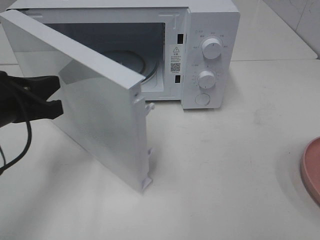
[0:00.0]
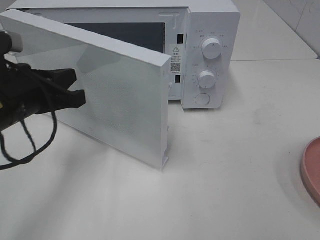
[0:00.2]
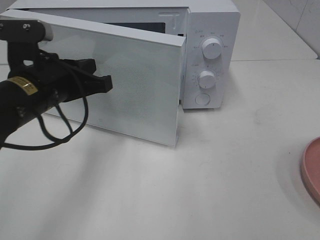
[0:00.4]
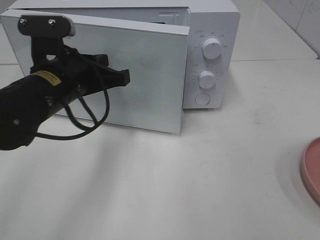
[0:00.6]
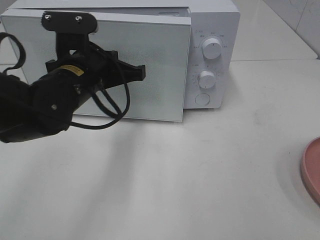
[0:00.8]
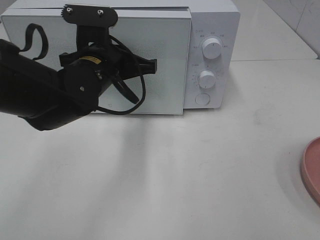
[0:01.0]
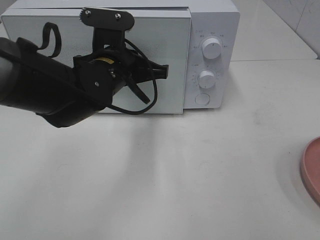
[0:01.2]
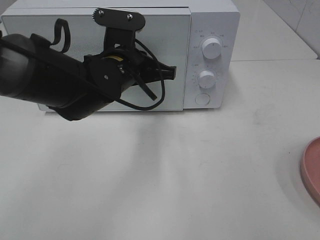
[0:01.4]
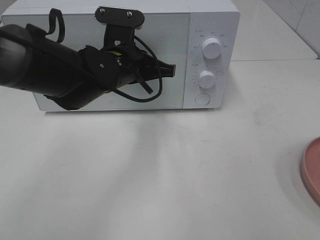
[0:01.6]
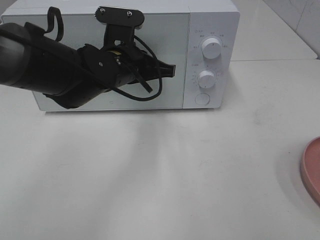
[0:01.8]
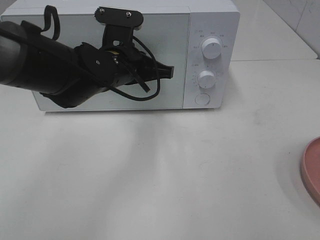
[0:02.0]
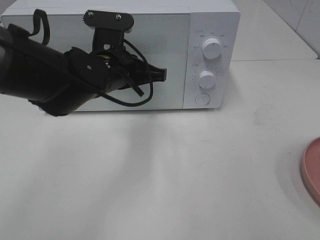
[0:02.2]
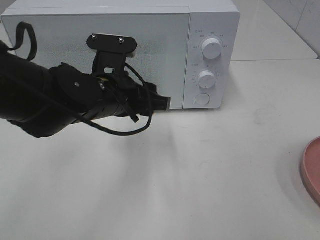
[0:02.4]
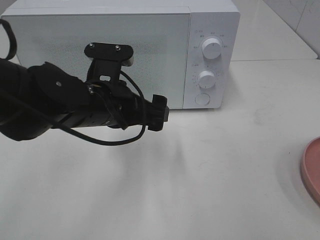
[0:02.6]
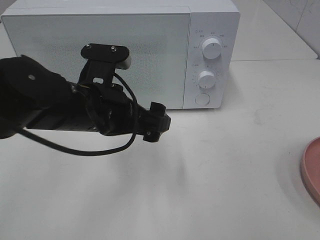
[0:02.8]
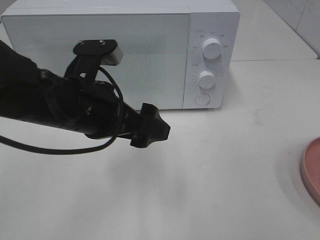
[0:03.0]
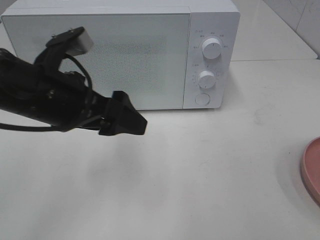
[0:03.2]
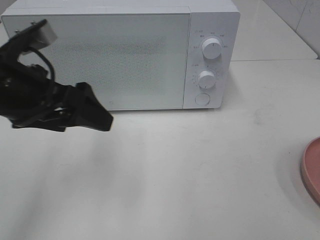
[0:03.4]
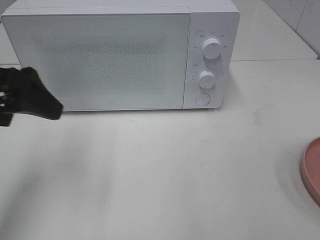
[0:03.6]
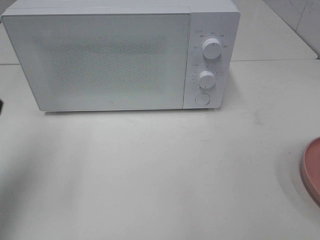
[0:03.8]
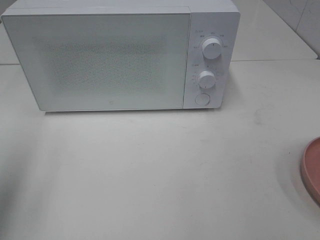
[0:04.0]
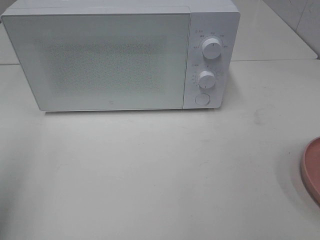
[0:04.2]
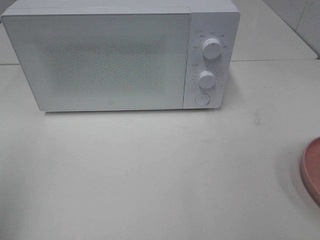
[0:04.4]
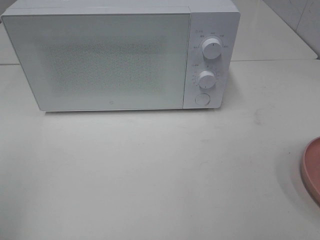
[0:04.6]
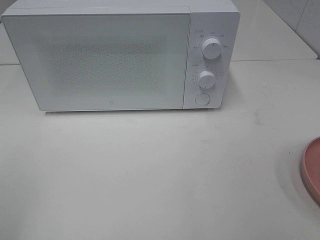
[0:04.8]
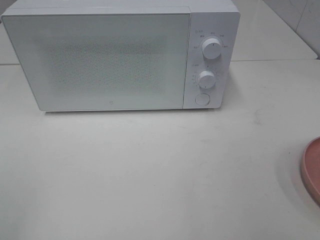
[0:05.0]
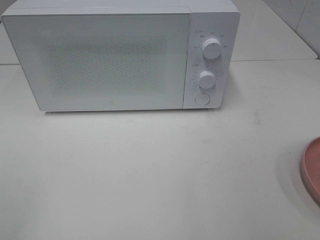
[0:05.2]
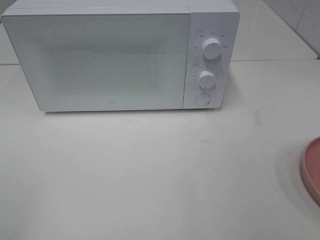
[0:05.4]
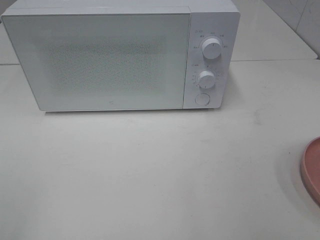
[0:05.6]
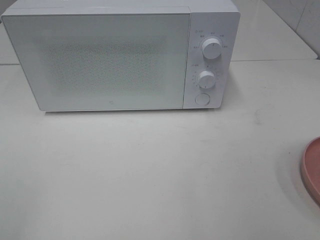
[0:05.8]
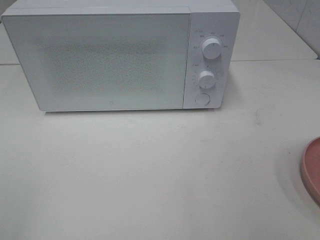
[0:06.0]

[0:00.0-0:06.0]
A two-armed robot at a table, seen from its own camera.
Task of the whole recording: Heat the burger.
Step, 0:00.0 to 0:02.4: Left hand: close the microwave door.
0:00.0 to 0:01.6: The left gripper is displaced to the right and forward by approximately 20 cm.
0:01.6 to 0:03.0: The left gripper moves backward, approximately 10 cm, and opens.
0:03.0 to 0:04.4: The left gripper goes about 30 cm to the left, backward and upward.

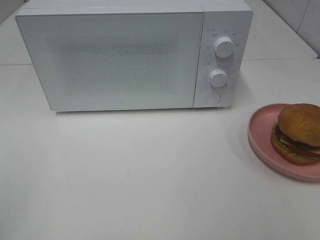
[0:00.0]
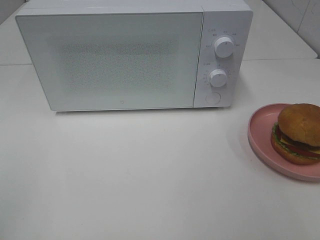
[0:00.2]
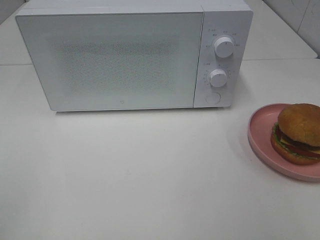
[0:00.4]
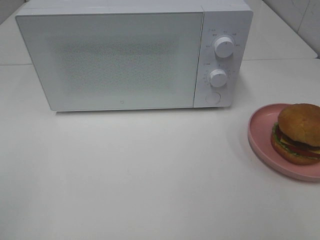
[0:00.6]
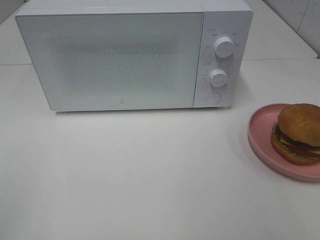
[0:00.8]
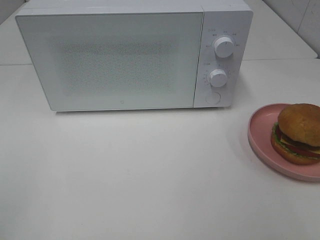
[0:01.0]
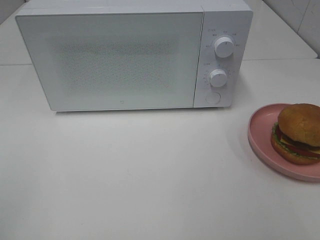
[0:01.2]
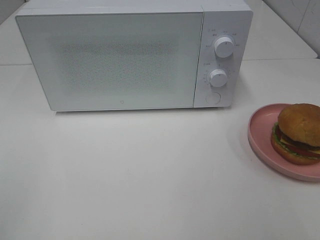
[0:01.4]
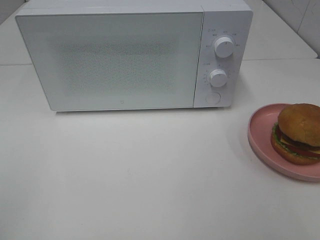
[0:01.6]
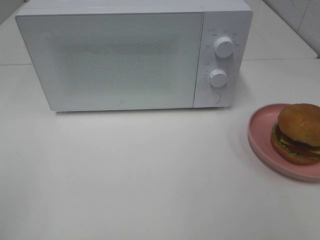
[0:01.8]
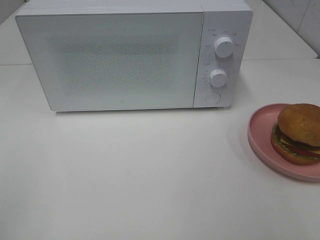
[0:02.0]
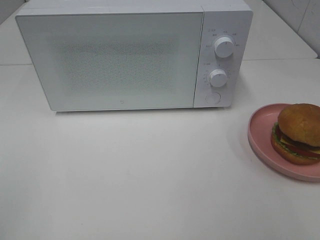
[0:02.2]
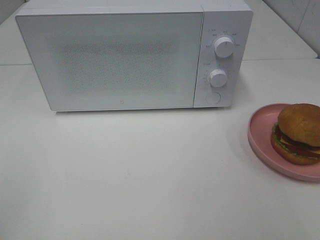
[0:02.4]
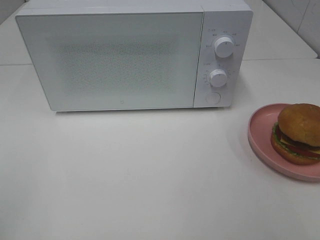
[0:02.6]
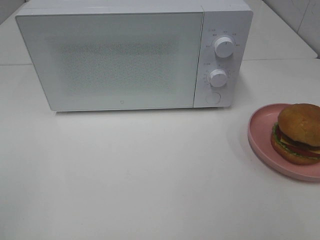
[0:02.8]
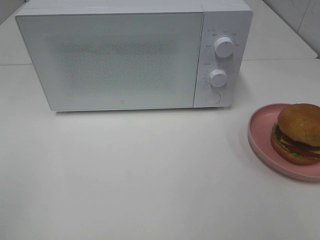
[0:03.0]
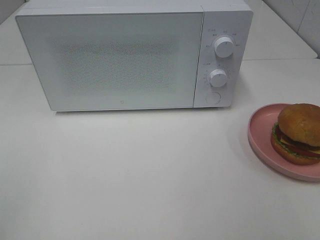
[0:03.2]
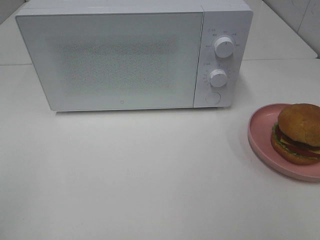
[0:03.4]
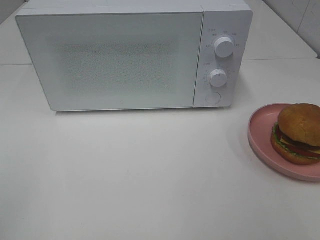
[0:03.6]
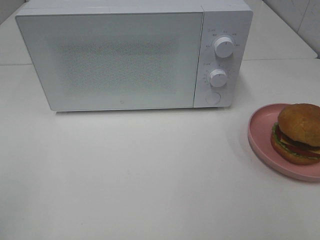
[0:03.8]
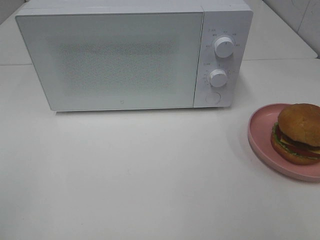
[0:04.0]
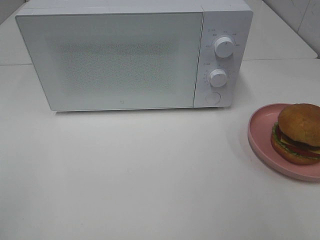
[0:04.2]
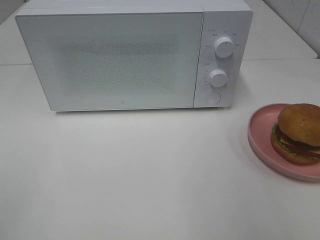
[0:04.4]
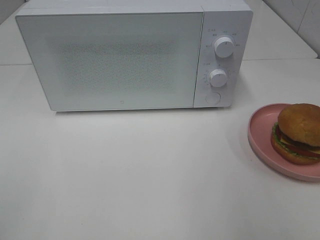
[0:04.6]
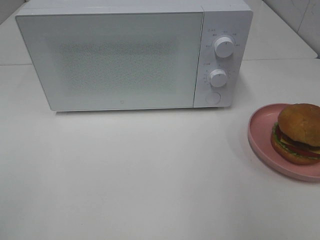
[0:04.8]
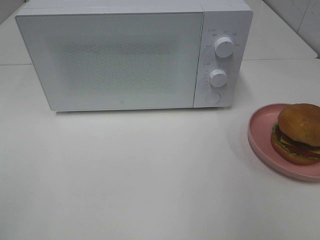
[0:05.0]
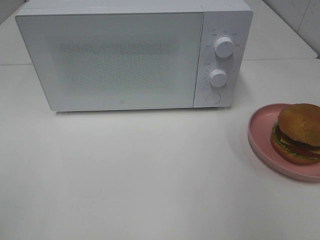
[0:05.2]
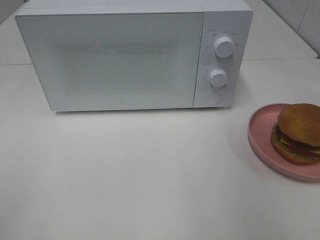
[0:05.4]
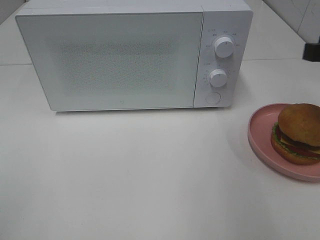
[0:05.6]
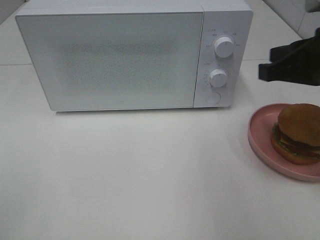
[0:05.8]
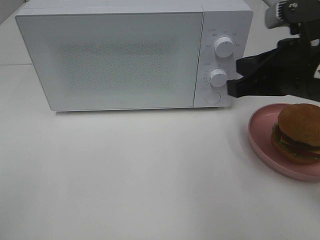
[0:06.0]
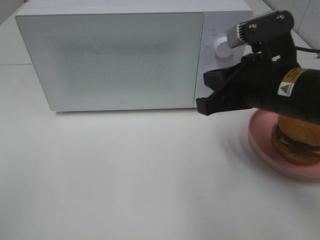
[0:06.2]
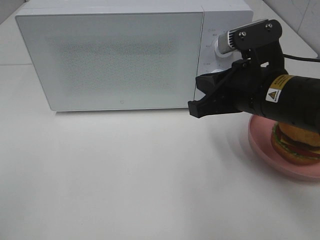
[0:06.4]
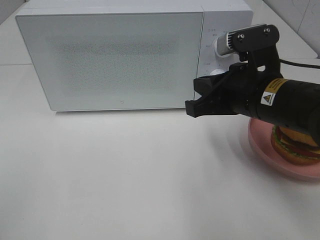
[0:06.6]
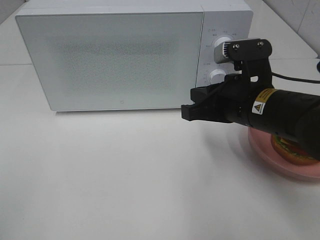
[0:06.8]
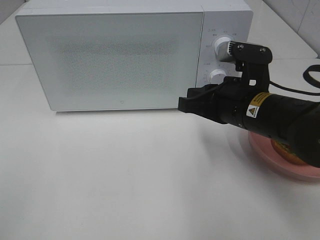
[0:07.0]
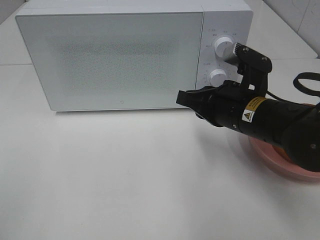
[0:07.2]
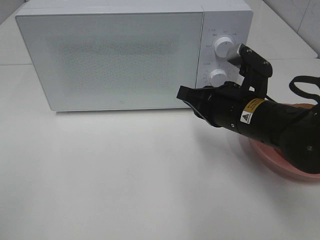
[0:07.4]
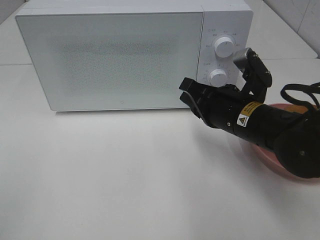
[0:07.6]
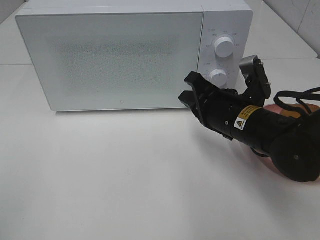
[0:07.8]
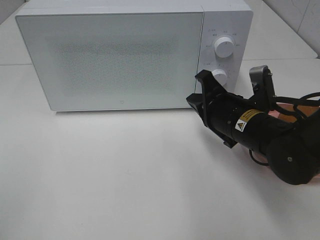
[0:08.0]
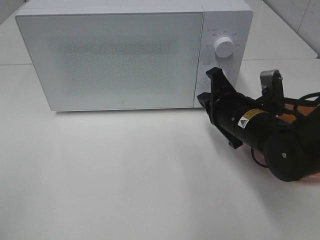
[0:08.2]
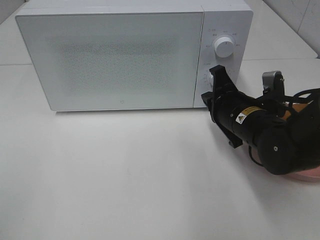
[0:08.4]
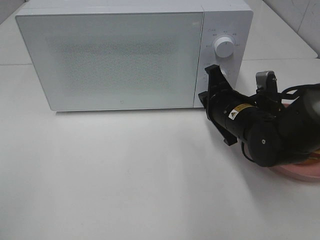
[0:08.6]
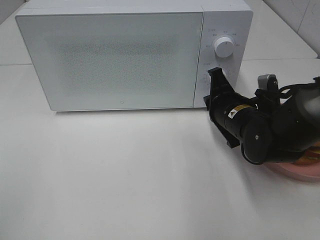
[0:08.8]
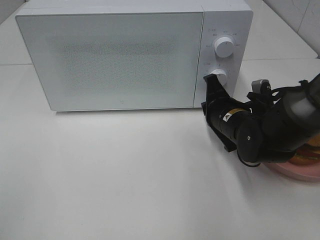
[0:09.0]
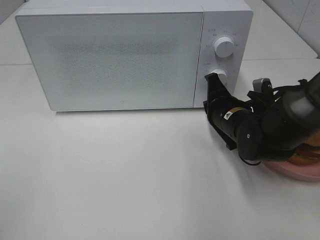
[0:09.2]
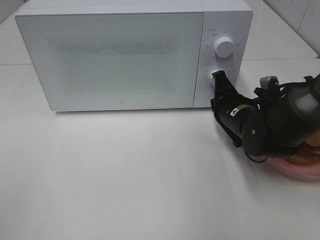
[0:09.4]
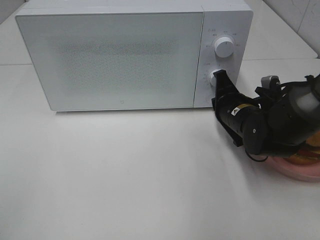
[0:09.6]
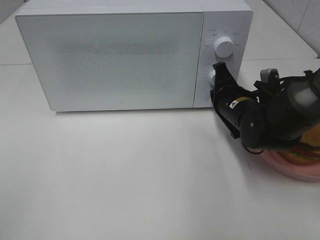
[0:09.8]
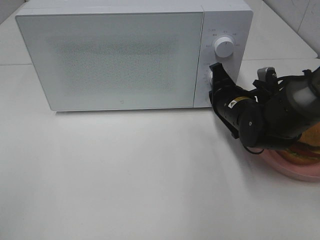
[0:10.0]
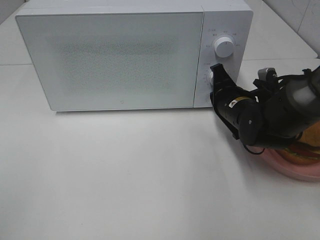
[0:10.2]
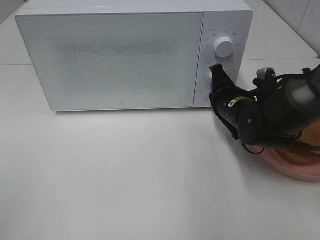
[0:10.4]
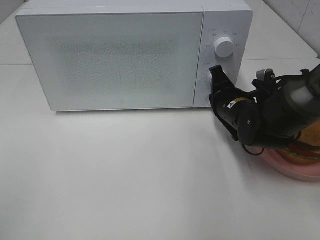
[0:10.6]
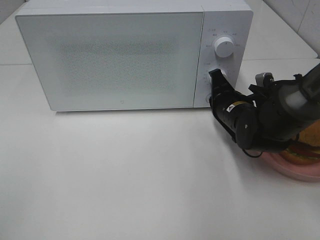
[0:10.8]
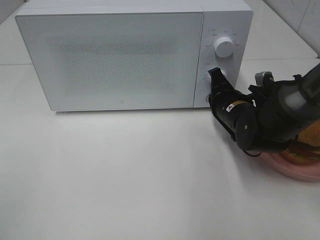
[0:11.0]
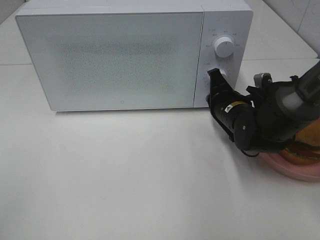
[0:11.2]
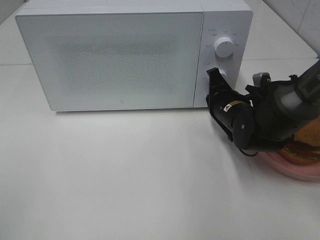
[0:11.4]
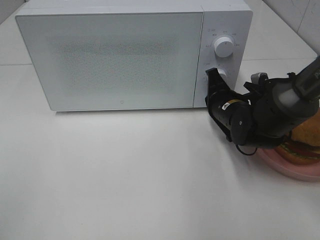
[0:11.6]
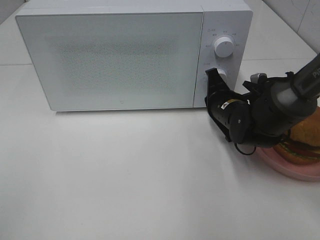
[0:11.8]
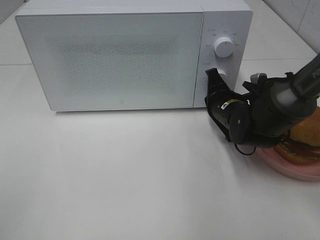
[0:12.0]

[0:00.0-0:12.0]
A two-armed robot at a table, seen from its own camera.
Task of the whole recording: Heat the burger.
0:00.0 to 0:03.0: The two grippers keep their place.
0:04.4 to 0:06.0: The right gripper travels forward, to the left and downward by about 20 cm, and closes up.
0:06.0 to 0:07.6: The right gripper travels downward and to the left by roughly 10 cm.
0:07.6 to 0:09.0: The right gripper is displaced downward and forward by some 10 cm.
0:09.0 to 0:12.0: There are only small adjustments of the grippers.

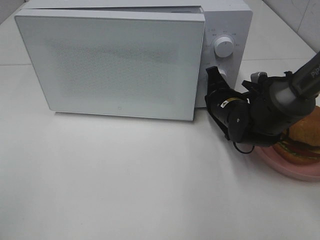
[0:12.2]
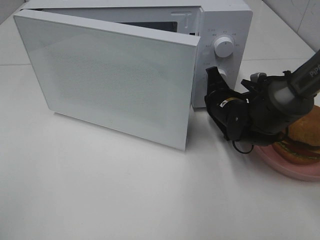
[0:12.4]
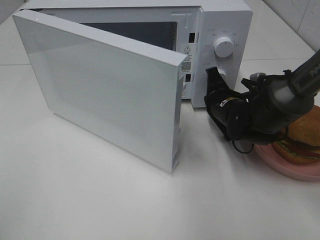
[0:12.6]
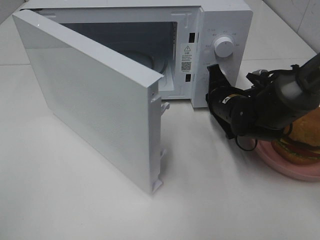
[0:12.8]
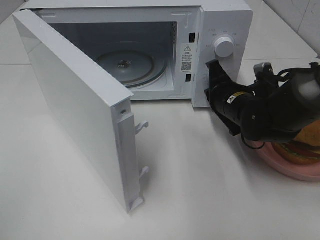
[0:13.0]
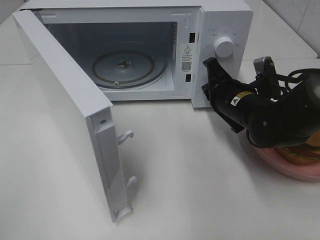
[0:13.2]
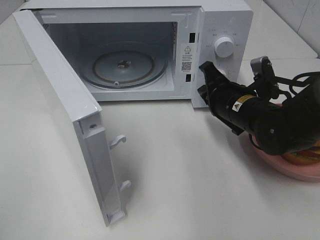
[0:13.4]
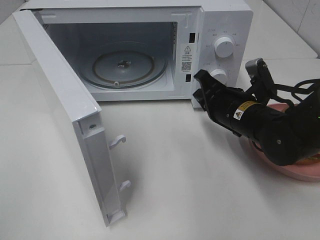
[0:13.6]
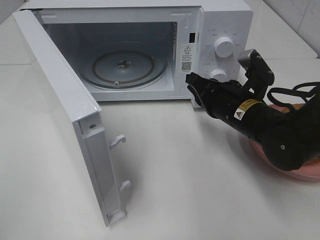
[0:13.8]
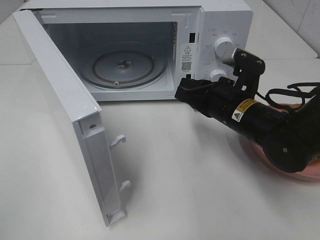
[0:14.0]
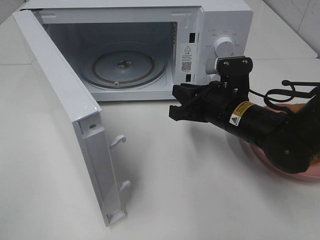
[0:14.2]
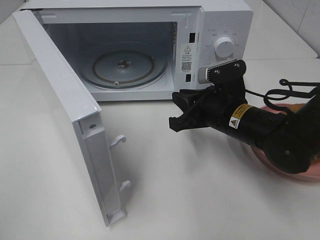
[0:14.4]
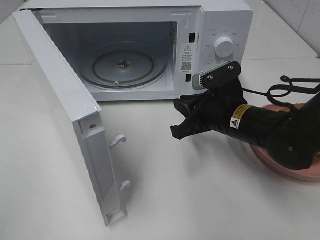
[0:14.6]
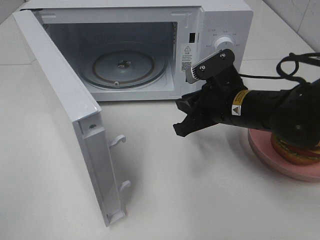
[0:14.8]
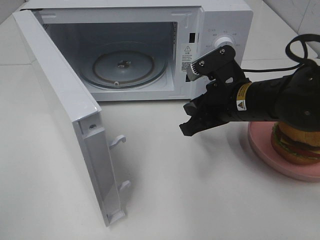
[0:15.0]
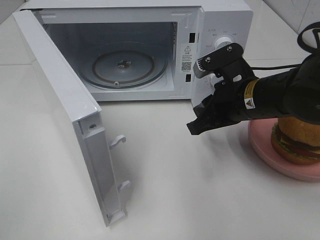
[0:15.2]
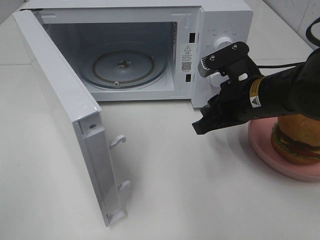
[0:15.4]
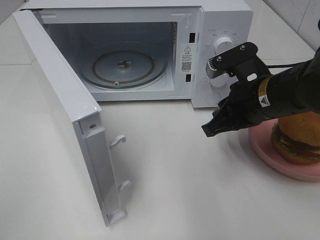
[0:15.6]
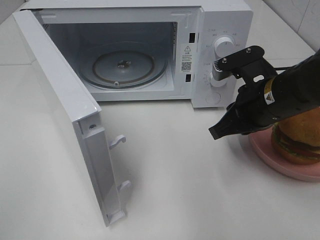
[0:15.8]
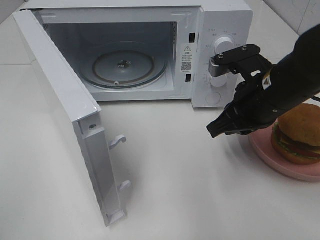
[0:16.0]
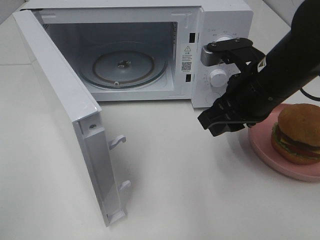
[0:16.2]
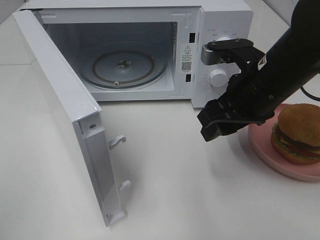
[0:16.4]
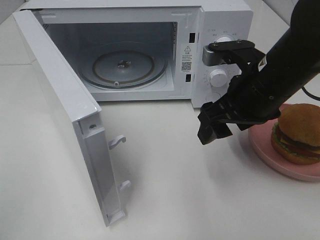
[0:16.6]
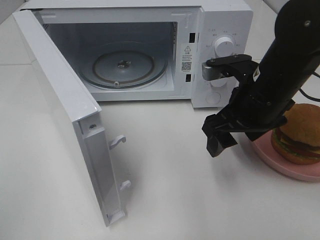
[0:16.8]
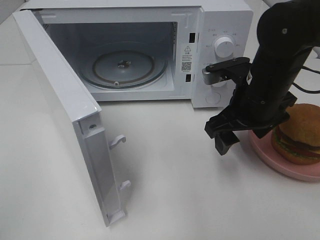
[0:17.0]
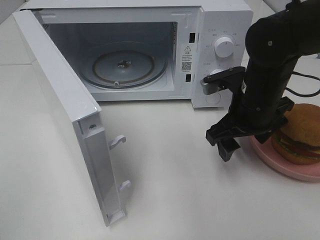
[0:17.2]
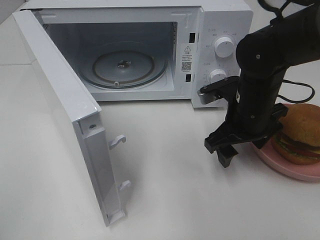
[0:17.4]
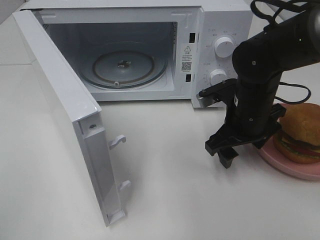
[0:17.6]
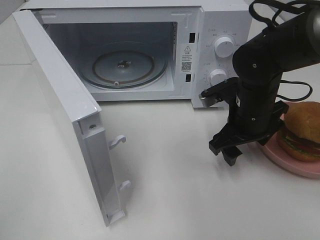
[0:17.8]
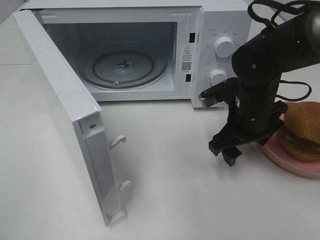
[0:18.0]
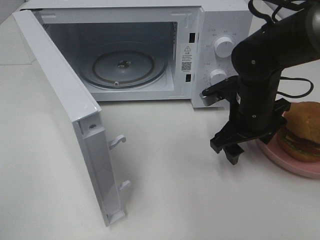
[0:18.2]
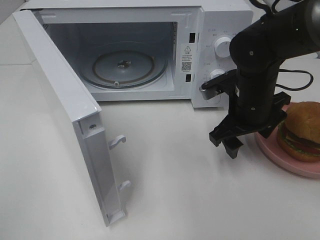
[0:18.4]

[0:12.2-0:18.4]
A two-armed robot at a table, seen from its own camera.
Task of the whole recording: Heat the burger.
0:12.2 to 0:13.8: The right gripper moves backward, about 5 cm.
0:15.4 to 0:16.8: The right gripper opens up.
0:16.8 to 0:18.4: The right gripper changes place by approximately 5 cm.
